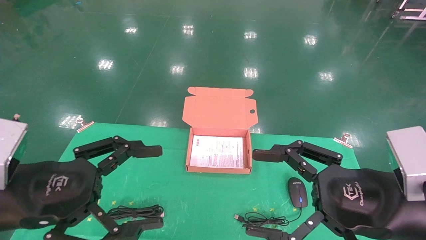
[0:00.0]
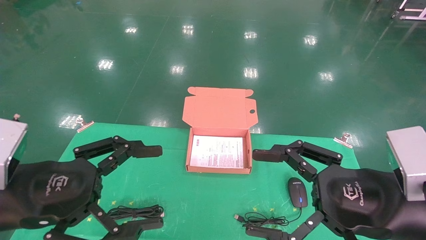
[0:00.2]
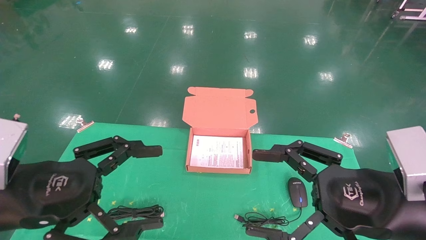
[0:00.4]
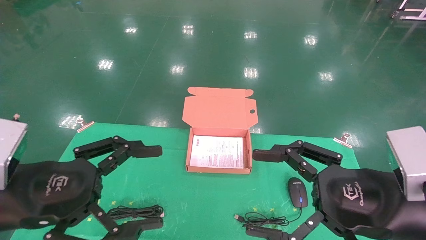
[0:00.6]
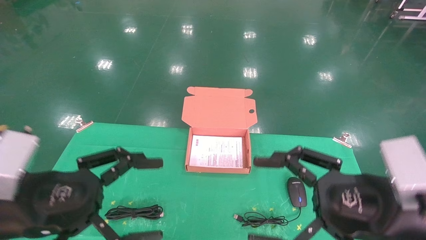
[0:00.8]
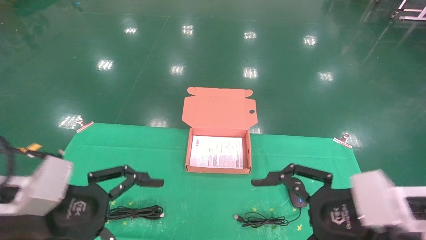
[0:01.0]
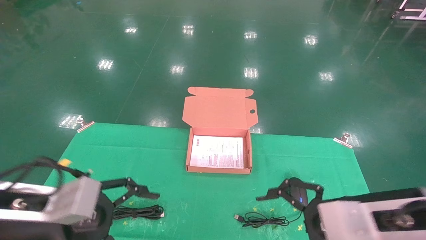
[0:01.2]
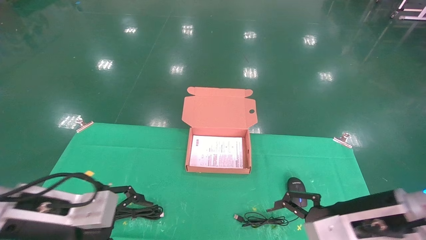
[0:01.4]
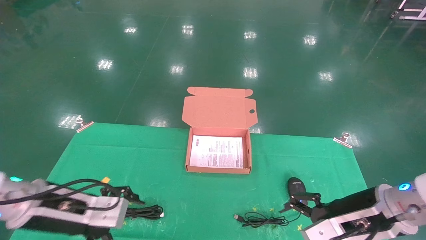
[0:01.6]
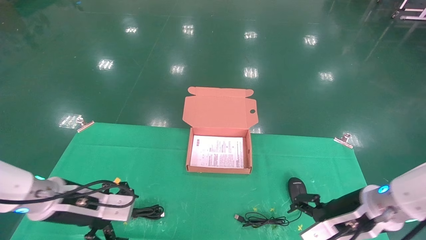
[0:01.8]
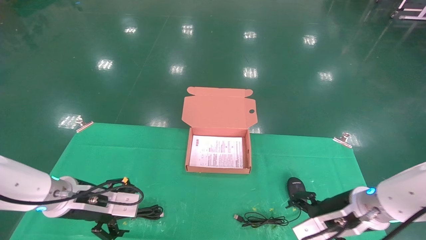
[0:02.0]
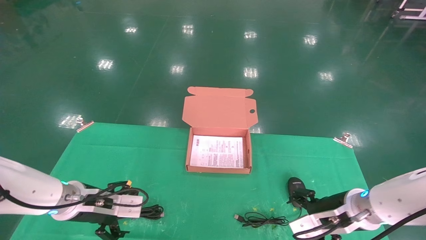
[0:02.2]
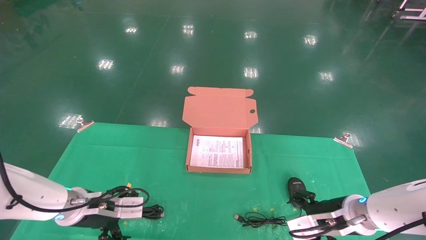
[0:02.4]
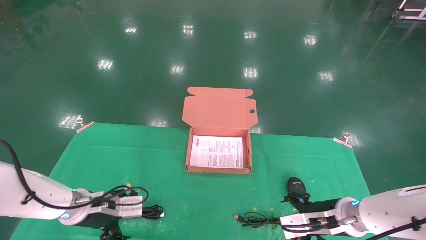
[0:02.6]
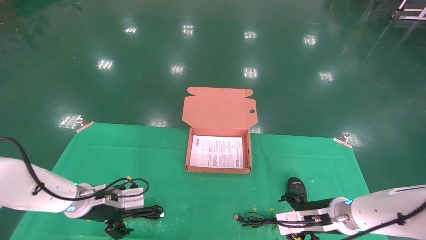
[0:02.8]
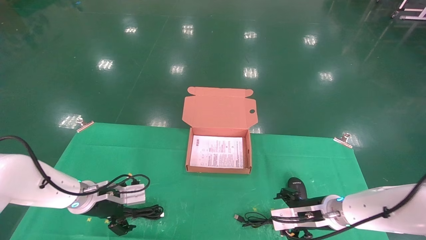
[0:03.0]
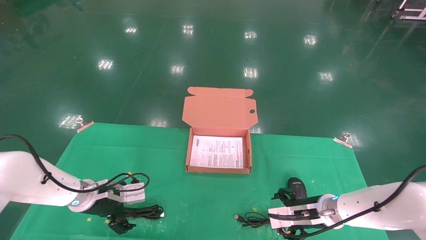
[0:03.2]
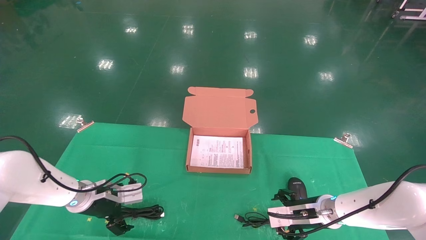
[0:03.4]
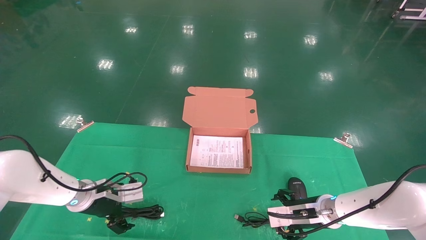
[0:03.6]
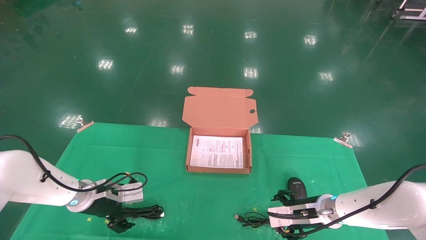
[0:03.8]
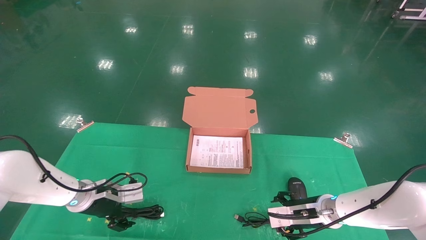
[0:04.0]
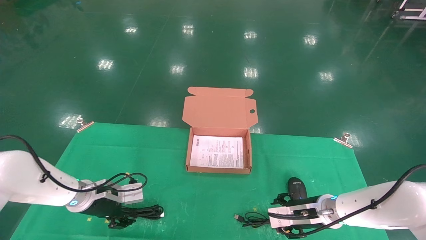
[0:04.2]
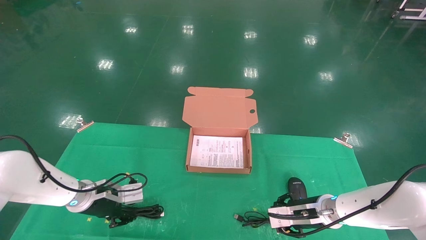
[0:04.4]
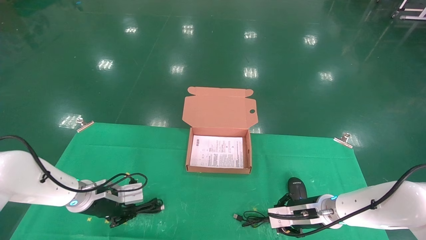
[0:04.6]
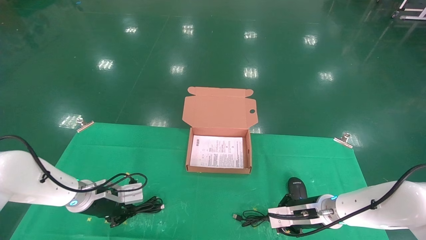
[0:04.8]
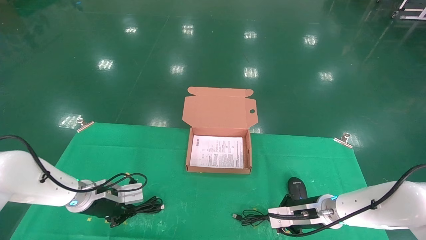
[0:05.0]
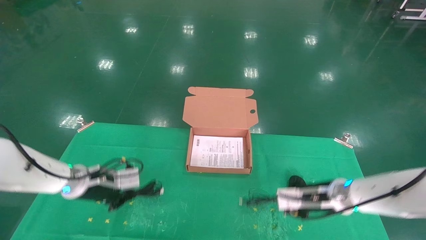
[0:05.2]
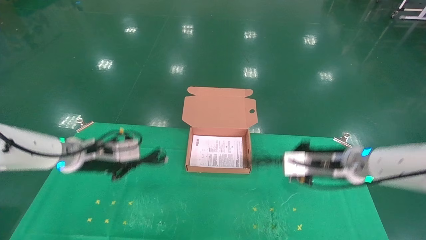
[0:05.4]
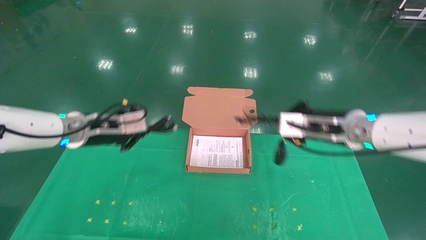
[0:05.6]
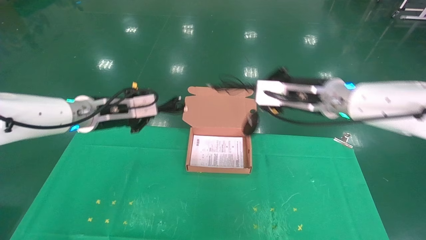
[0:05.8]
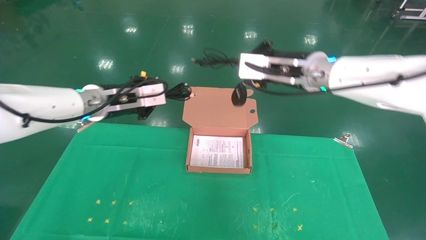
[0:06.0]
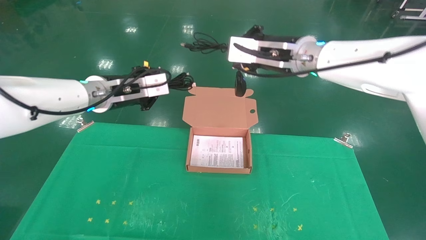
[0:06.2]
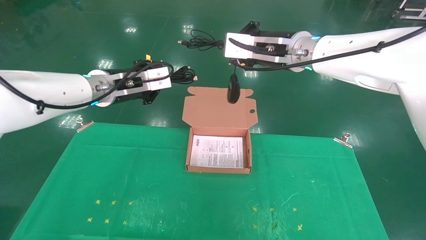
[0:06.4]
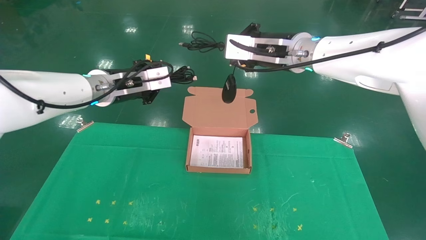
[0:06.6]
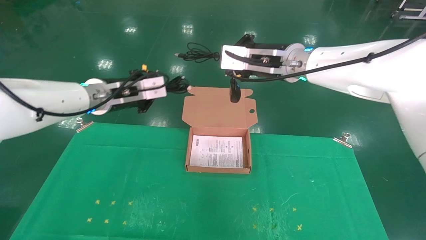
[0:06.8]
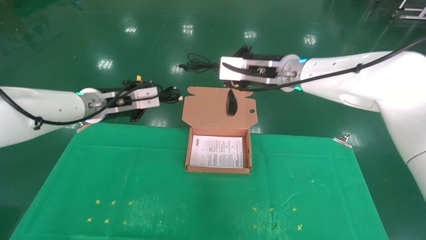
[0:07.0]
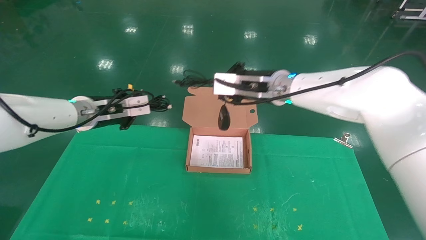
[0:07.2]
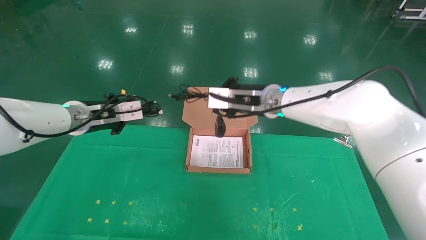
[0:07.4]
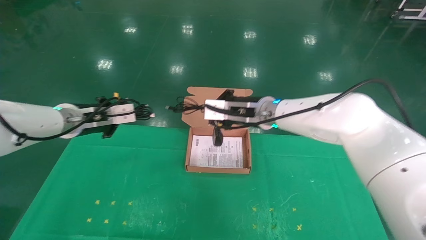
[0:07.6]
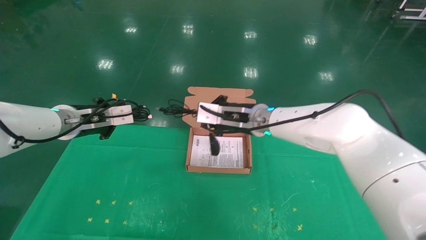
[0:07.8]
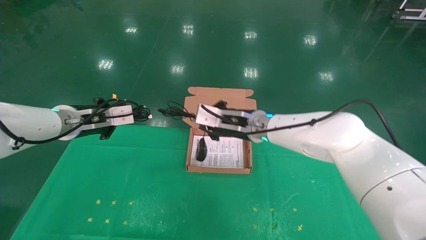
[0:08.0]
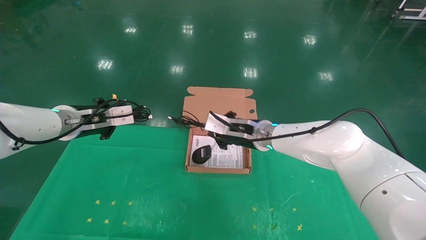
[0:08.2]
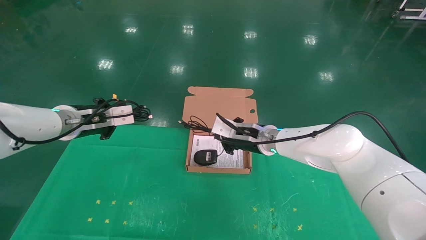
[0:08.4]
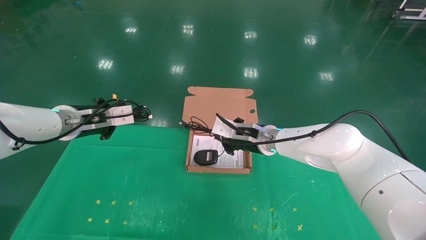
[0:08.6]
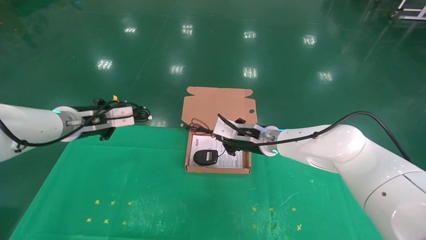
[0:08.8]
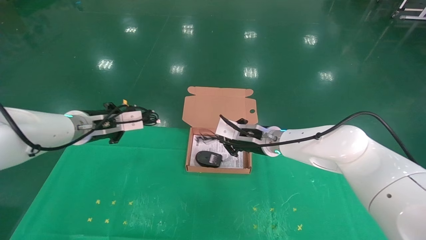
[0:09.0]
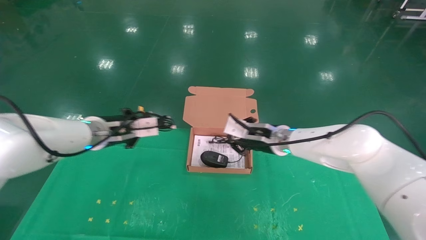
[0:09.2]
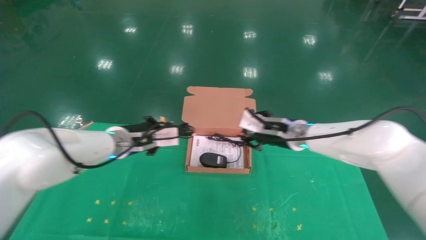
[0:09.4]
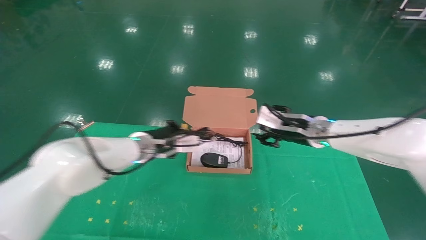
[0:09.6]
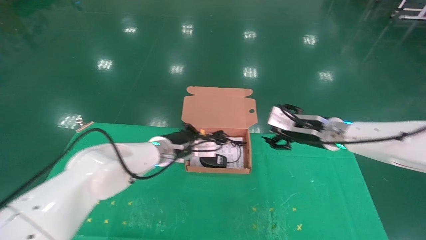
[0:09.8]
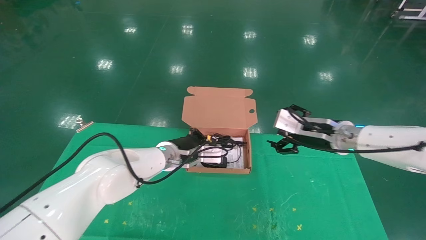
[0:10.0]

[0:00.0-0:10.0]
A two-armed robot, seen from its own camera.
Task of the whole recording: grasp data cable left put into box grasp mouse right put into box.
Step, 0:01.0 to 0:05.0: Grab and pick up both the mouse and power cord from the accessory packaging area at the same time.
0:00.0 to 0:01.4: The two grippers go some 10 cm forward and downward.
0:01.4 to 0:02.8: Both grippers travel together forward and downward, roughly 15 cm.
0:02.8 to 0:04.2: The left gripper closes its fingers.
0:04.2 to 0:05.8: Both grippers move upward, about 25 cm. The left gripper closes its fingers, while the right gripper closes its fingers.
0:05.8 to 0:07.2: The right gripper heads to the left, covering approximately 10 cm.
0:07.2 to 0:08.6: The right gripper shifts roughly 15 cm downward.
0:08.6 to 0:10.0: The right gripper moves to the right and backward, some 15 cm, and opens. The left gripper heads to the right and downward, covering some 20 cm.

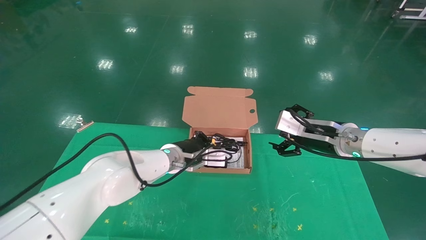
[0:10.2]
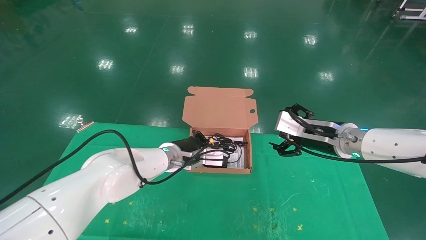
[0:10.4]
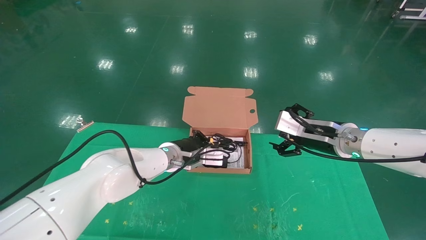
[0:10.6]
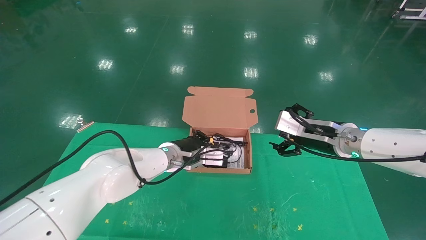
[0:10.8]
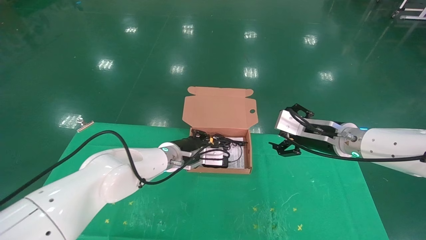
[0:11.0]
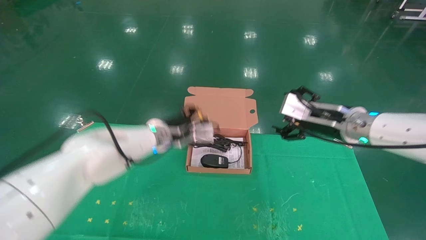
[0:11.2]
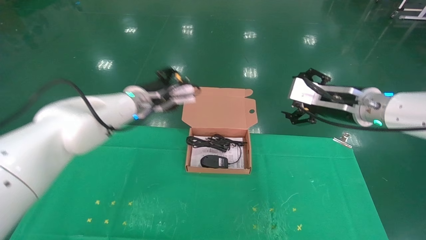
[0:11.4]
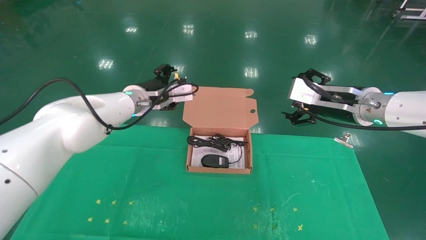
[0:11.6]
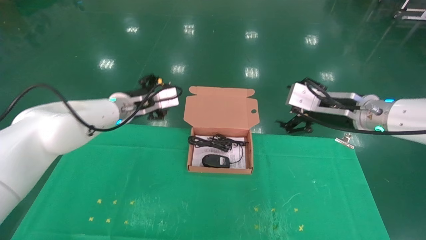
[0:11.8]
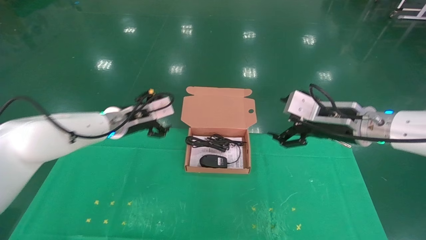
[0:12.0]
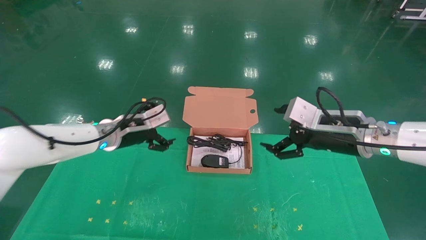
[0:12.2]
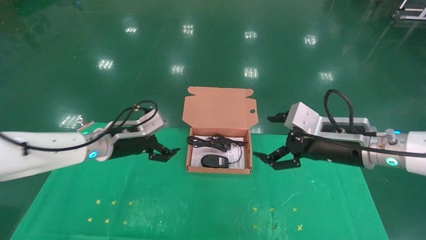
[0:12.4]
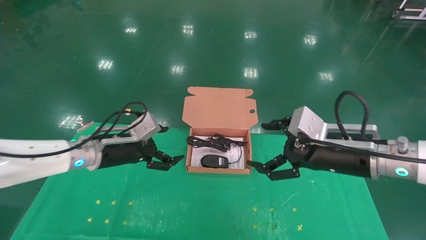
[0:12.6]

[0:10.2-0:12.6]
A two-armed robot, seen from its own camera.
Task of the whole recording: grasp data cable left put into box grasp mouse right put into box.
0:10.2 to 0:11.4: The right gripper heads upward, covering approximately 5 cm. Meanwhile the left gripper goes approximately 15 cm upward and to the left, and opens.
0:11.4 to 0:12.6: The right gripper moves backward and downward, some 10 cm. The left gripper moves backward, to the left and downward, approximately 15 cm, and opens its fingers.

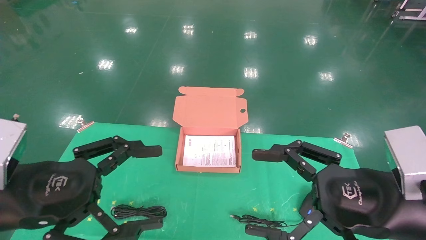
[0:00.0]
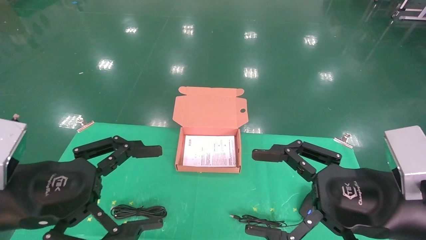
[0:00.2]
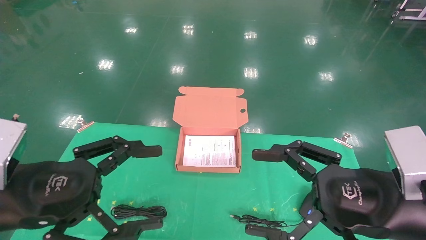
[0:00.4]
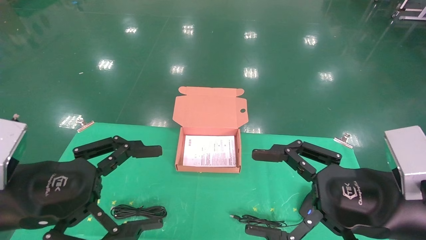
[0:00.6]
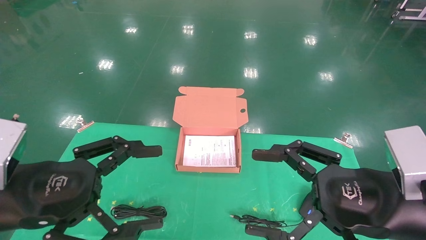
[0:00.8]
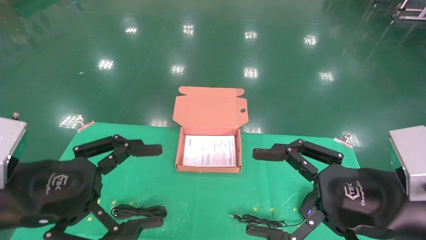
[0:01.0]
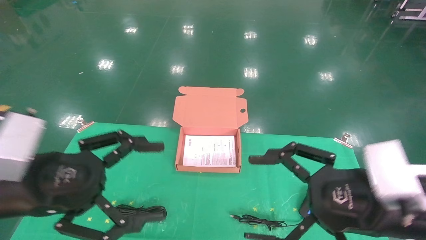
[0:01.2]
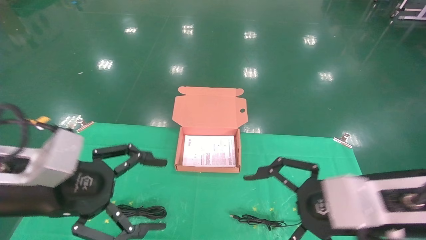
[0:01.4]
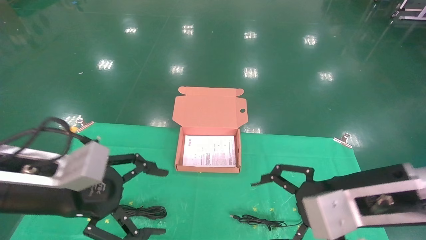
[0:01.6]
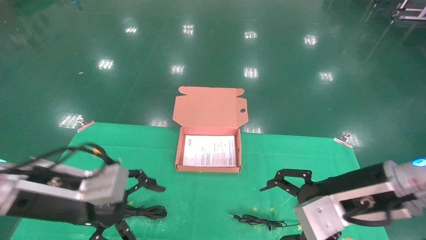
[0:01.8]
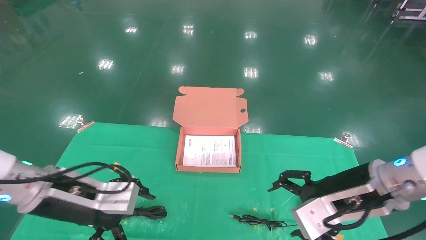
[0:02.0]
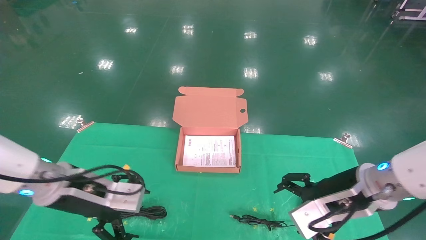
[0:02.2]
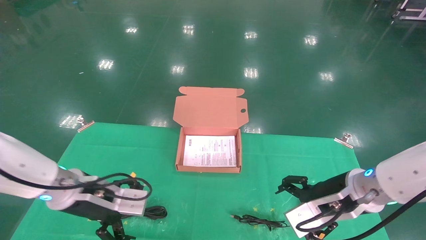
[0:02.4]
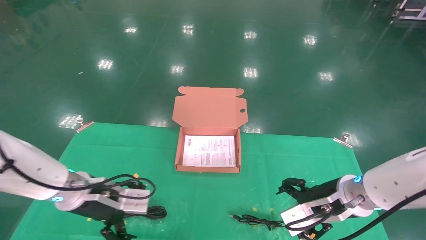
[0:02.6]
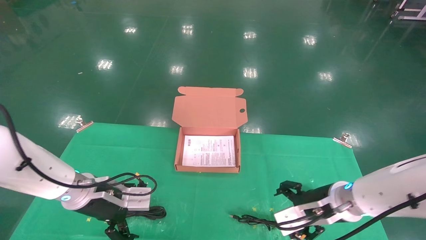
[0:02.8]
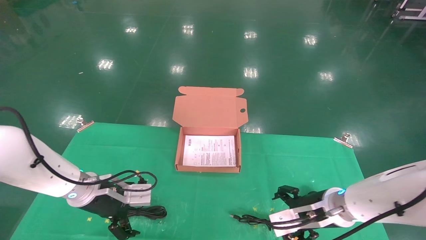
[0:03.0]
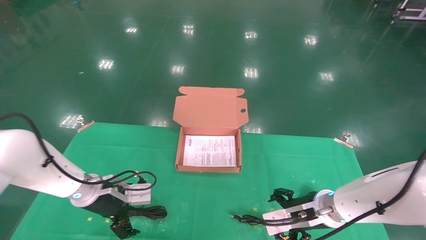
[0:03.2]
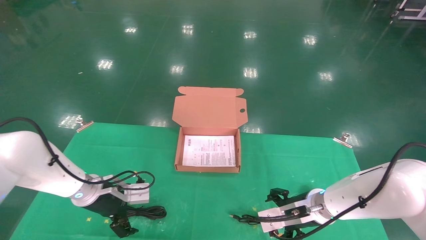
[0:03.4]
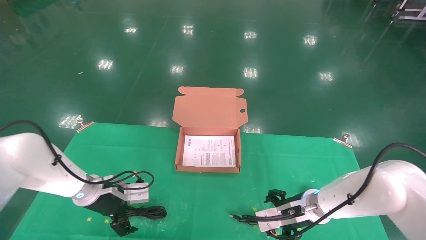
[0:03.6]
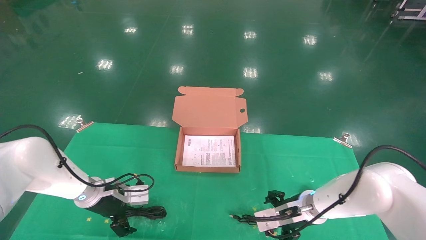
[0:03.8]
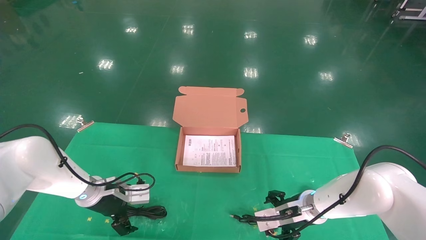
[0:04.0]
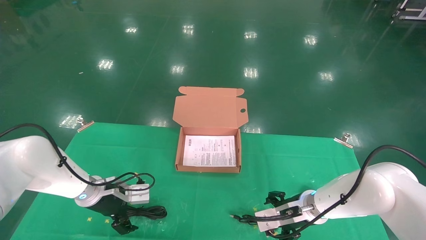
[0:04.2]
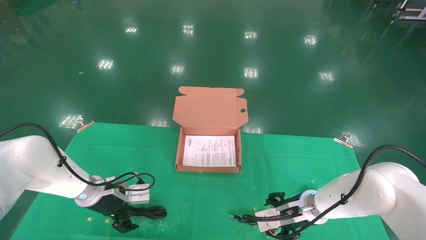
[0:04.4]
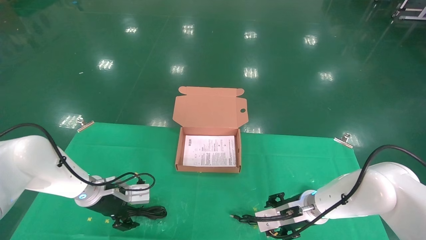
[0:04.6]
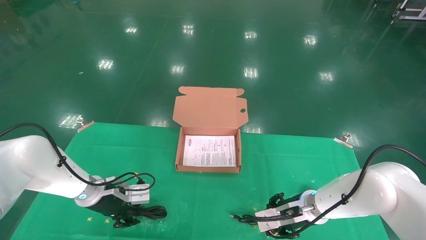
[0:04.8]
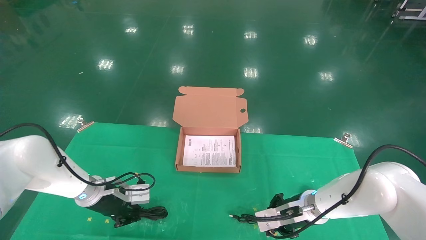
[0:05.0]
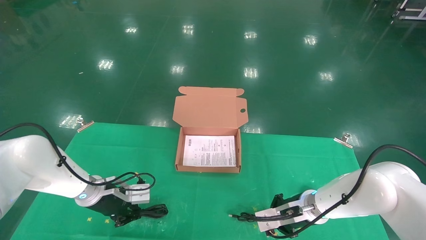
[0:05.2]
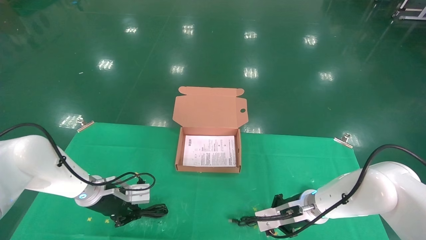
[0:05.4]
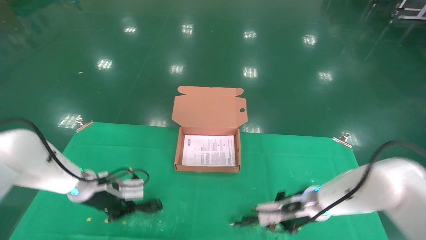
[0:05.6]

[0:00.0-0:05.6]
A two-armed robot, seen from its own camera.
Task of the whole recording: grasp data cable left put into box grasp mouse right put into box.
0:01.4 to 0:02.8: The two grippers go approximately 15 cm forward and downward.
0:02.8 to 0:04.2: The left gripper shifts roughly 10 cm forward and downward. Meanwhile the right gripper travels downward and forward by approximately 10 cm.
0:04.2 to 0:05.6: The right gripper heads upward, covering approximately 5 cm, and closes, while the left gripper closes up.
